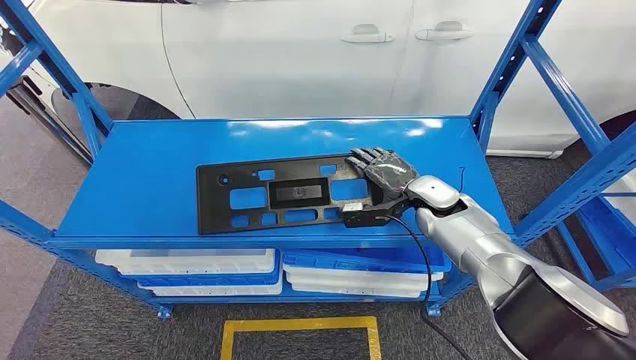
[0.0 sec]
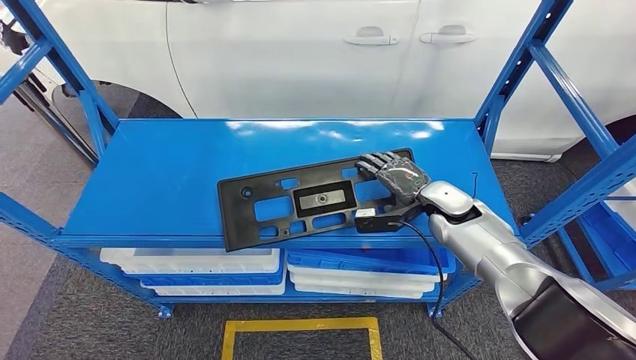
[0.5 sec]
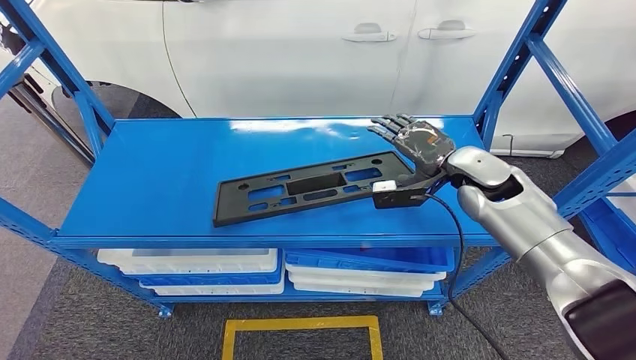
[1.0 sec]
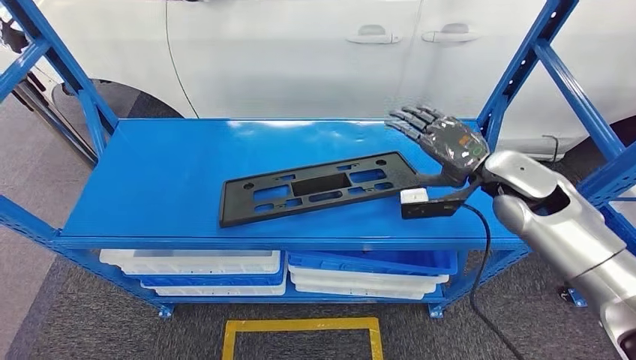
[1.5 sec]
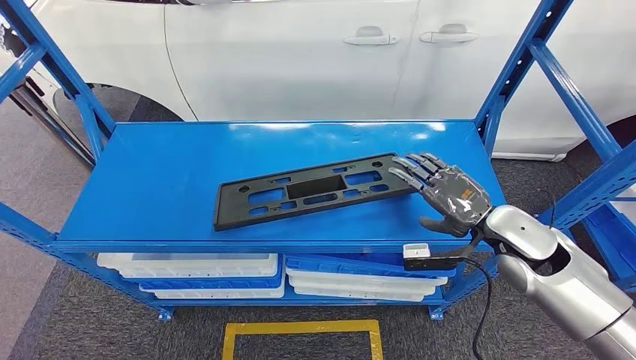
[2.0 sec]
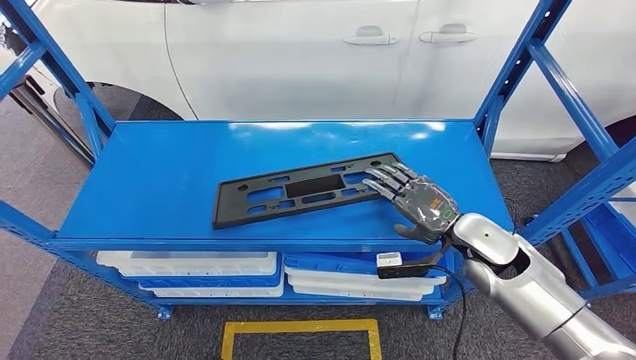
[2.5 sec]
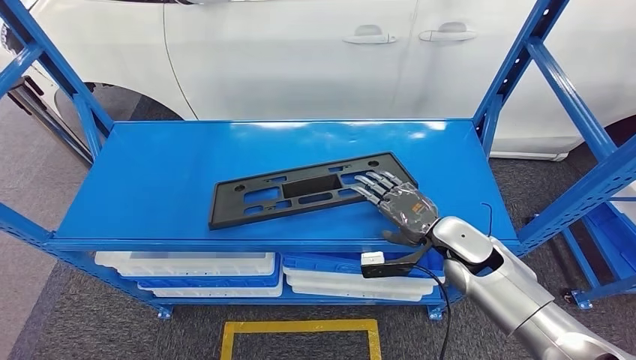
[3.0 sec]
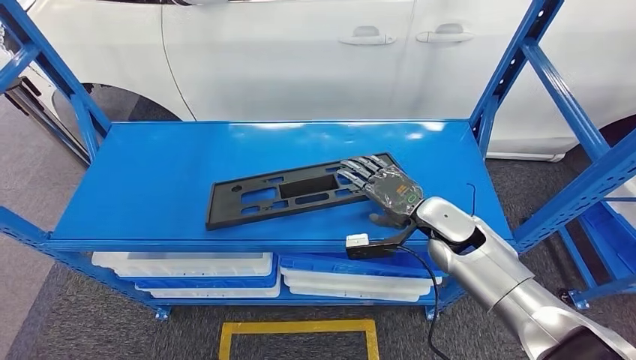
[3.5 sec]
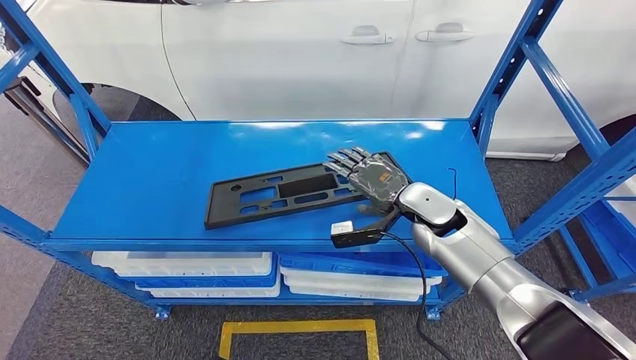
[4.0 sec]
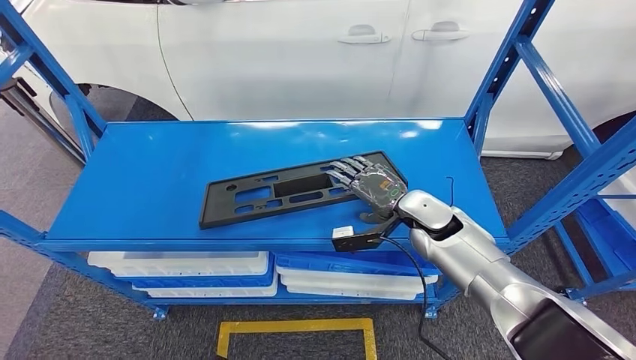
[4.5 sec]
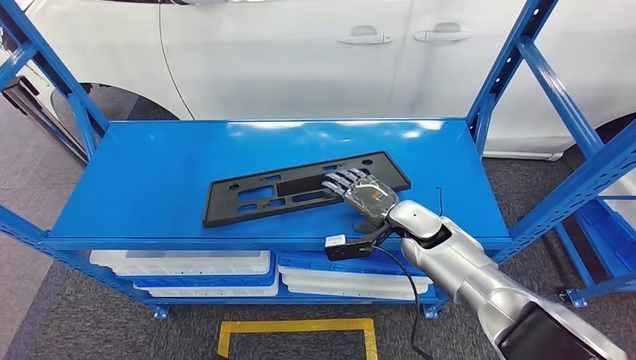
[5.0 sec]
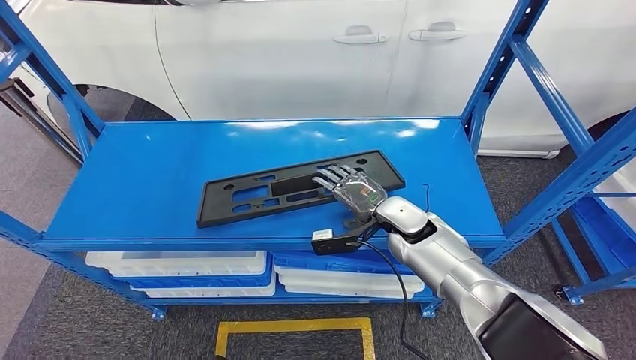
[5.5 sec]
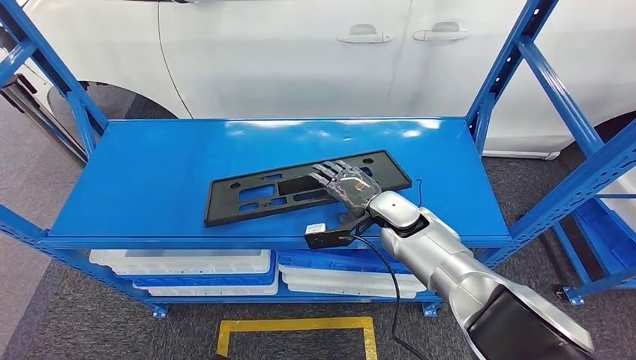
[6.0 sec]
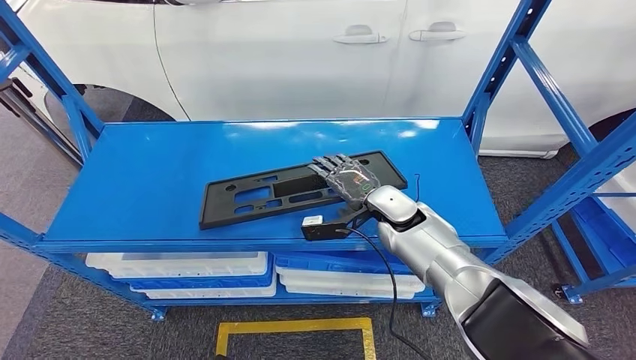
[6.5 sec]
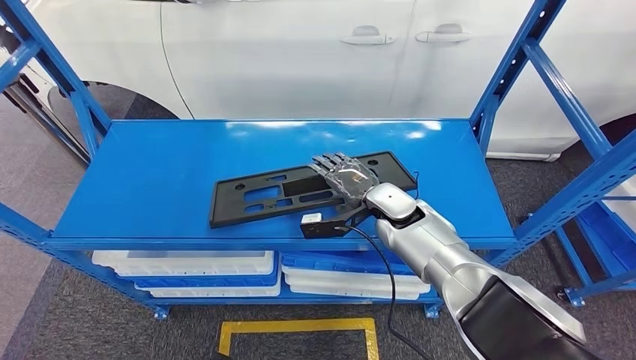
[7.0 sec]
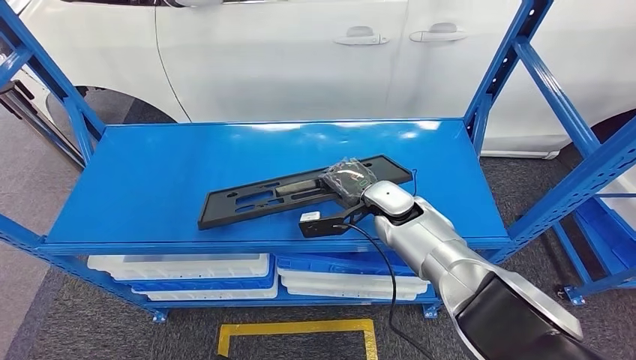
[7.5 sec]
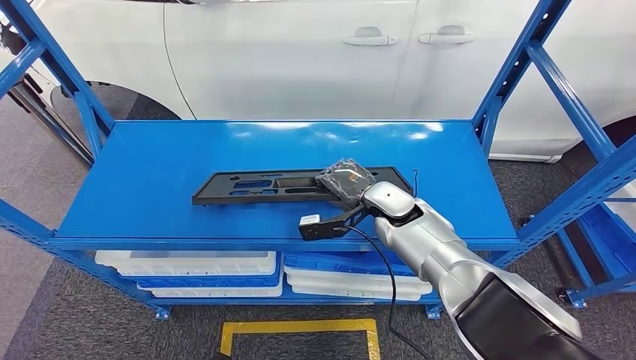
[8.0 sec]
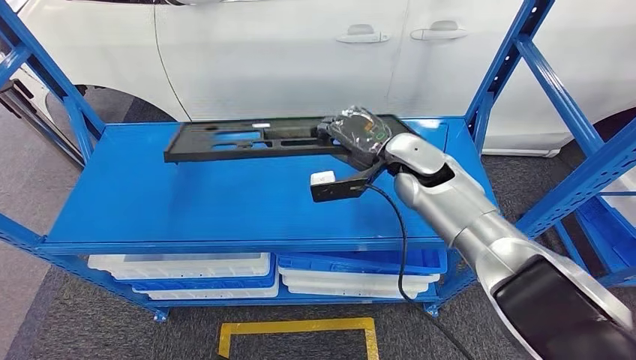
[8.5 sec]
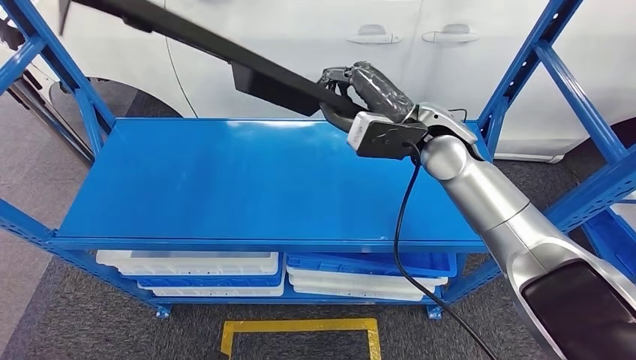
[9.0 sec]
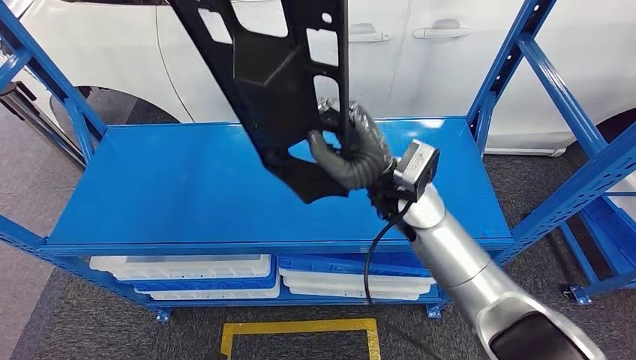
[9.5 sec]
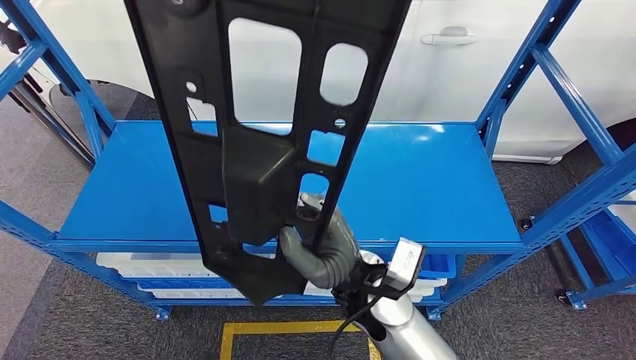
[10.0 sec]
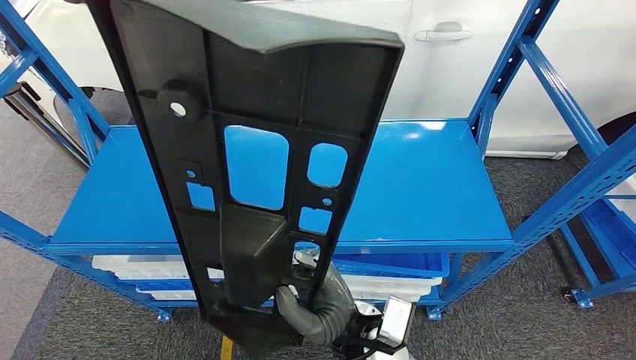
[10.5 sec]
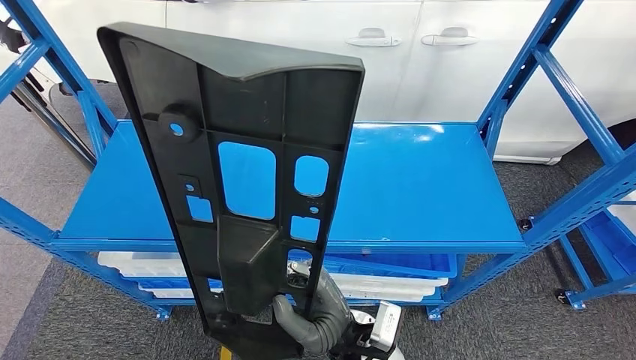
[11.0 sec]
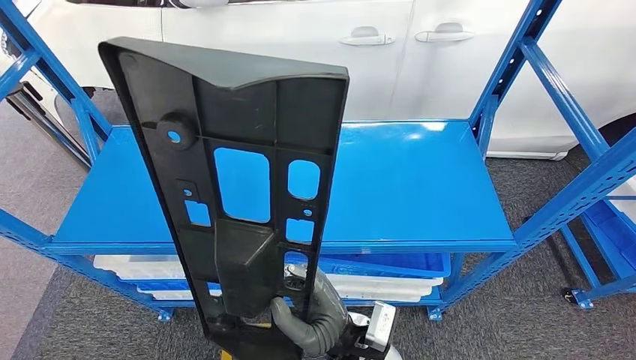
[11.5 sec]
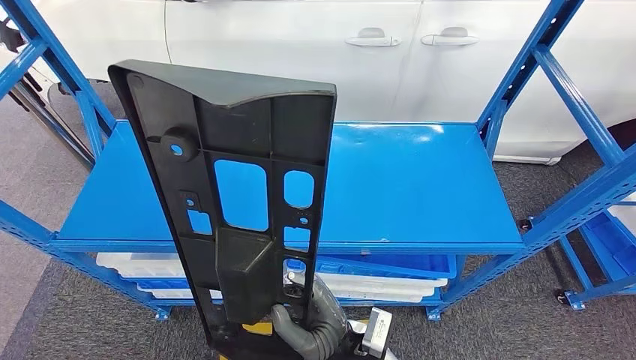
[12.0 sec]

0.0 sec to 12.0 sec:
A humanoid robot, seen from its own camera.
Step, 0.0 sec to 10.5 sec: Pick up the large parts from the shelf.
4.0 sec to 6.0 sec: The right hand changes place by some 5 cm.
6.0 sec to 8.0 sec: The hands stay close to where they were, moving slightly.

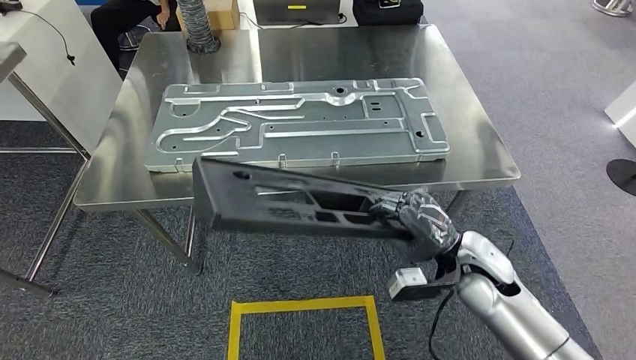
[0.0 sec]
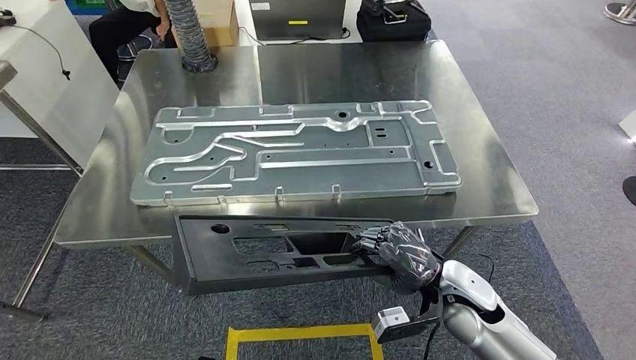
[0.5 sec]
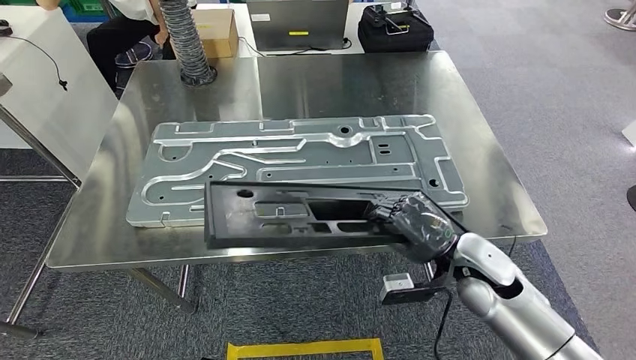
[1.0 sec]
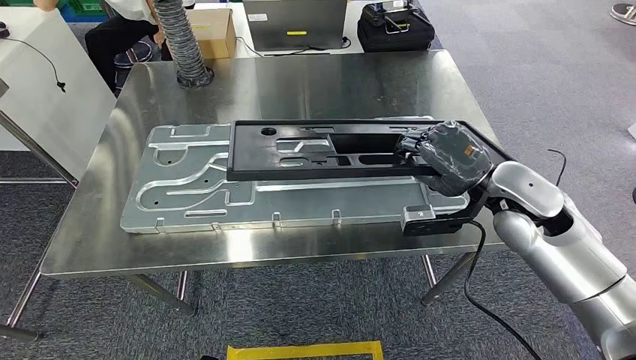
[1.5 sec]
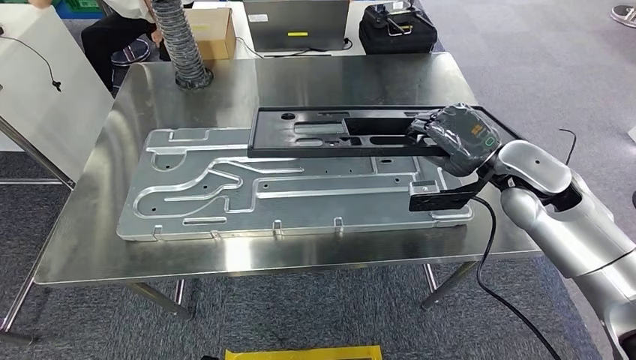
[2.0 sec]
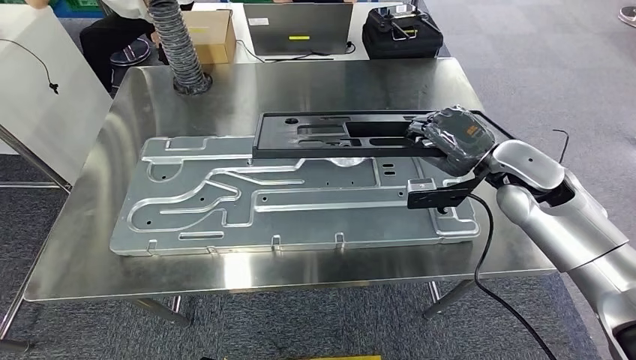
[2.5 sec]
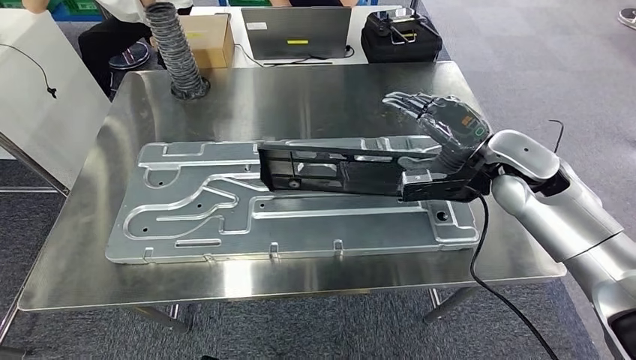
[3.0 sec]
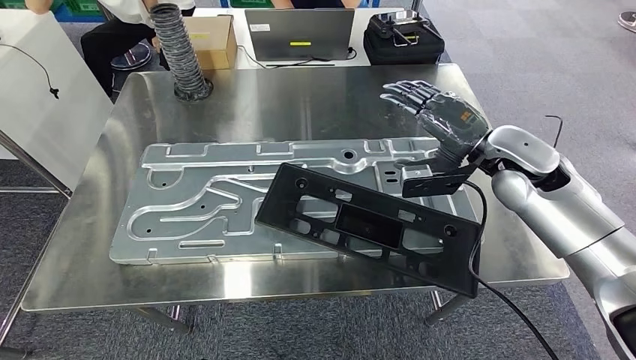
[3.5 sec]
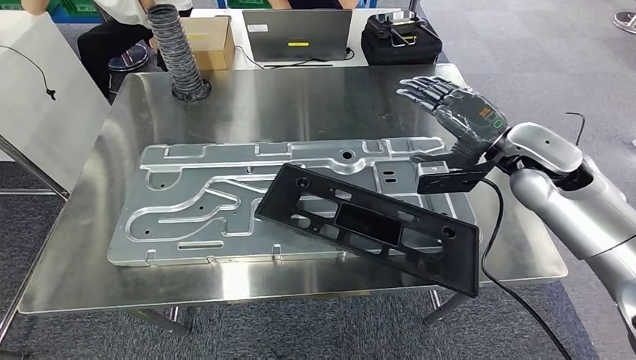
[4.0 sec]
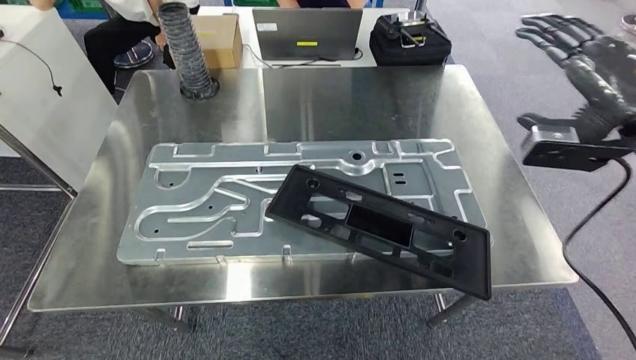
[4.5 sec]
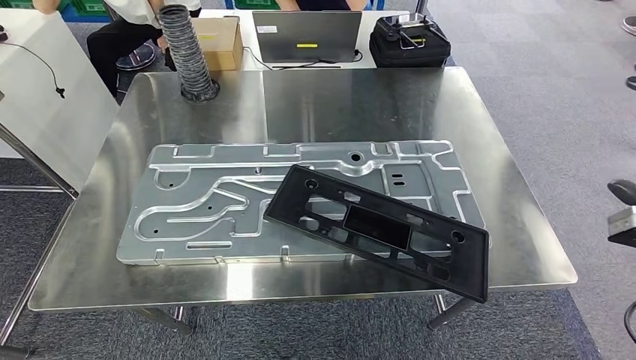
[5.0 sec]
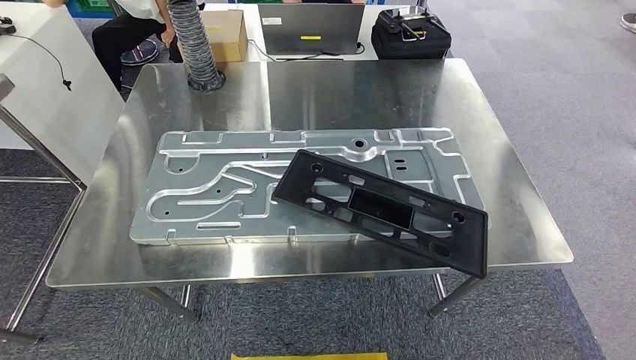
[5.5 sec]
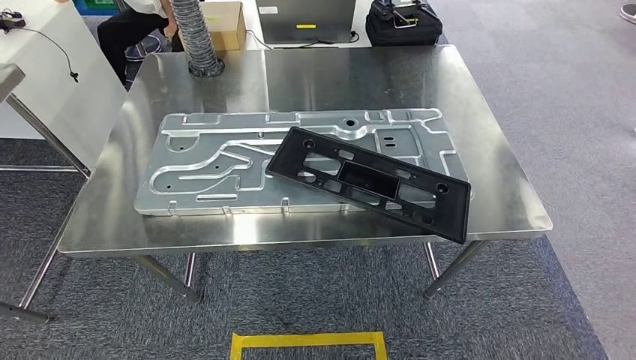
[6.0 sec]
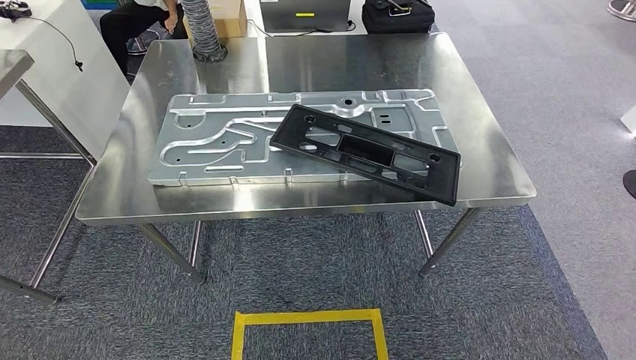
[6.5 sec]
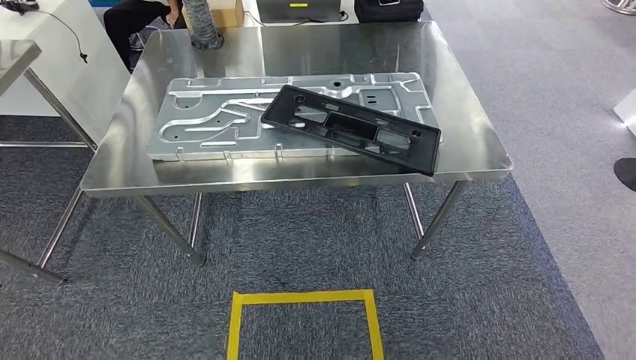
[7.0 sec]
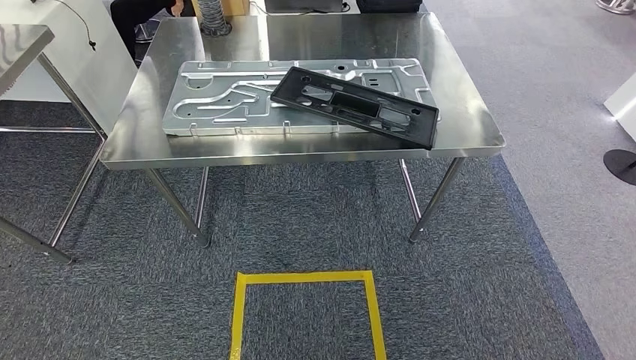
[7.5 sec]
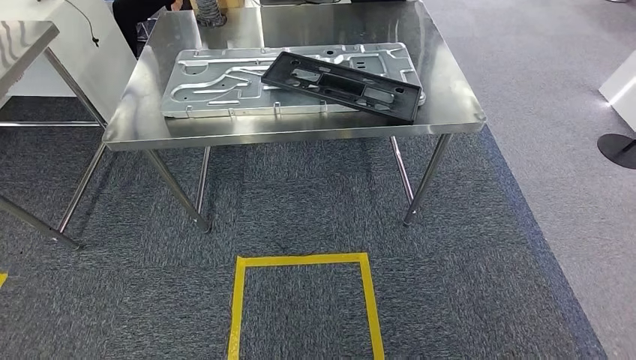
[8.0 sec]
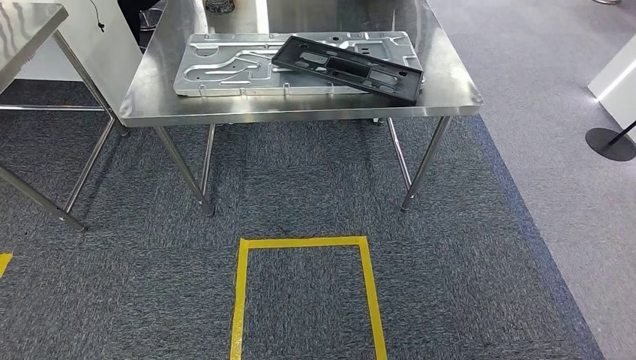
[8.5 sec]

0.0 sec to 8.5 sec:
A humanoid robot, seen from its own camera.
Step, 1.5 sec to 4.5 sec: Insert the large parts into the corresponding slots on the workbench.
